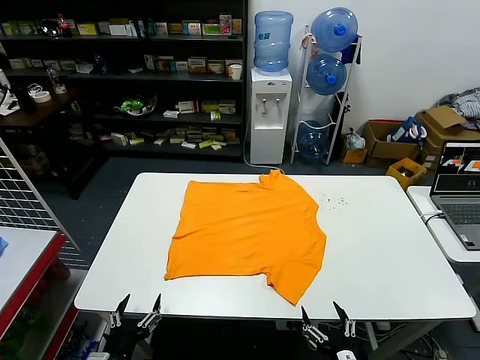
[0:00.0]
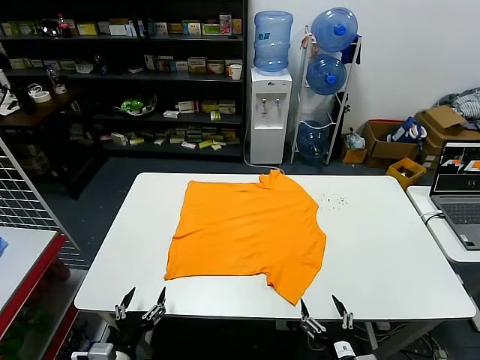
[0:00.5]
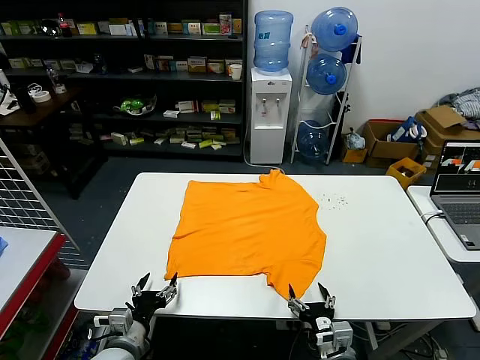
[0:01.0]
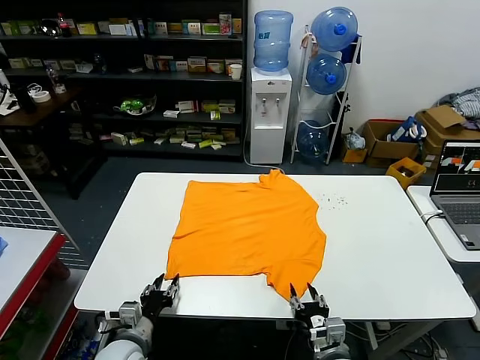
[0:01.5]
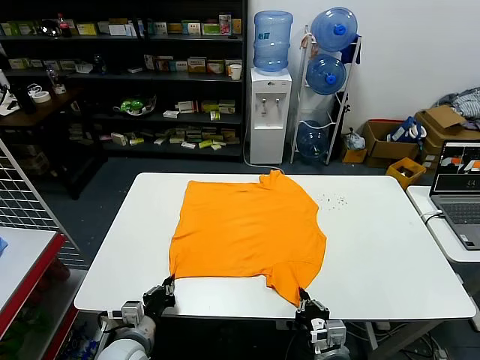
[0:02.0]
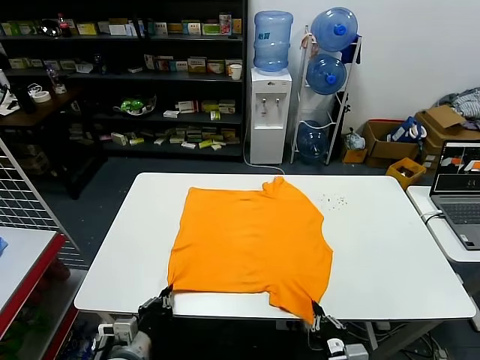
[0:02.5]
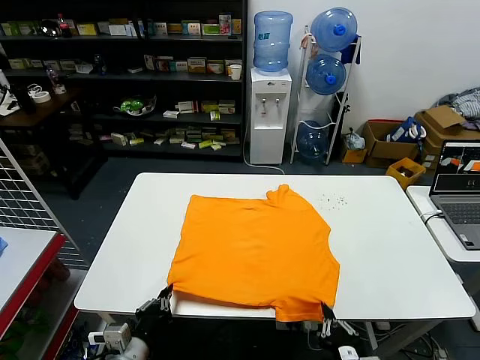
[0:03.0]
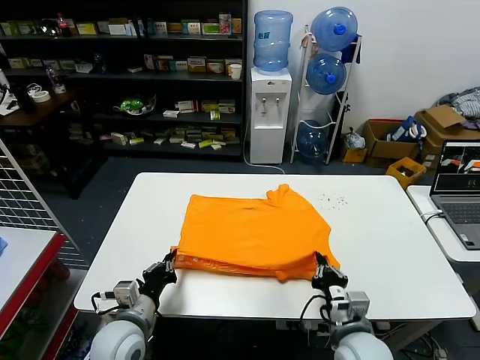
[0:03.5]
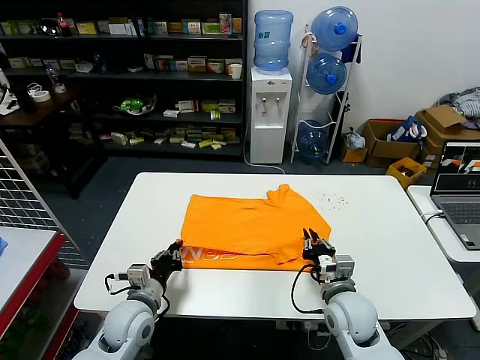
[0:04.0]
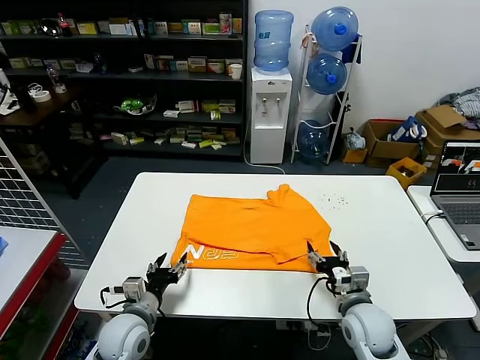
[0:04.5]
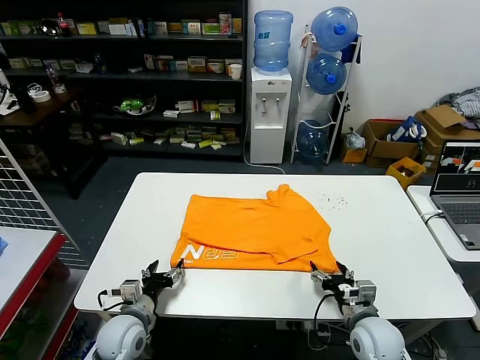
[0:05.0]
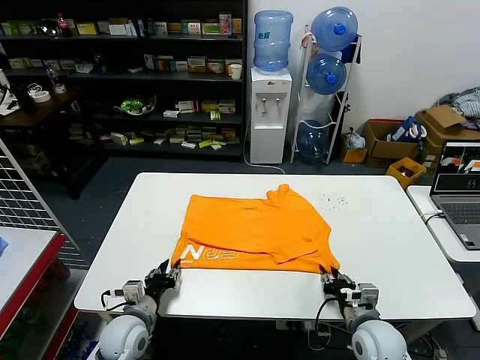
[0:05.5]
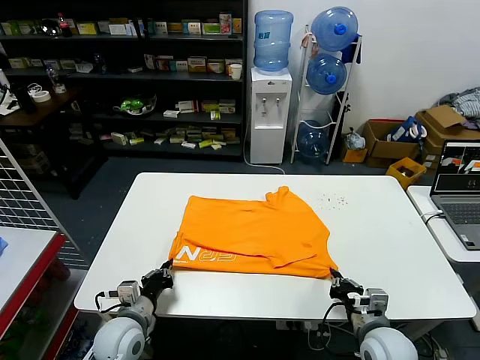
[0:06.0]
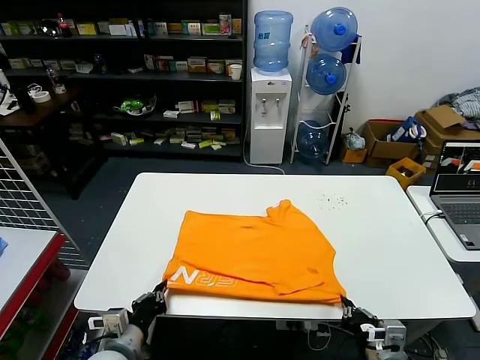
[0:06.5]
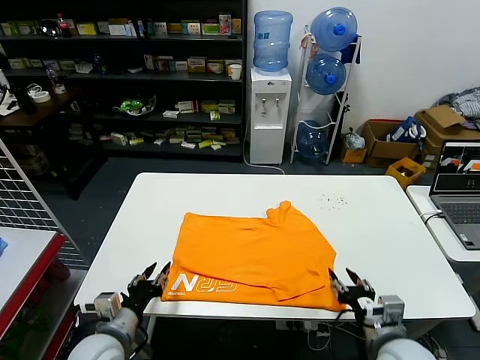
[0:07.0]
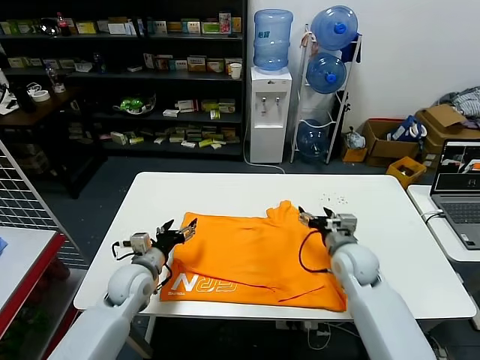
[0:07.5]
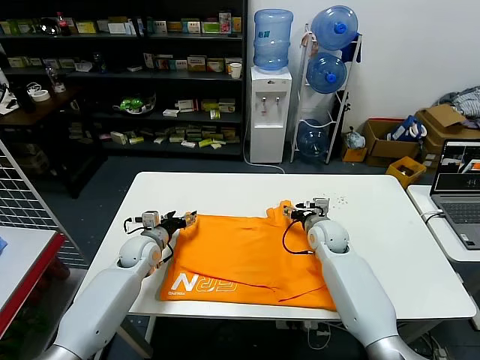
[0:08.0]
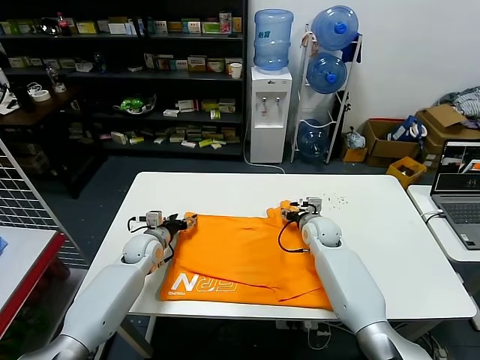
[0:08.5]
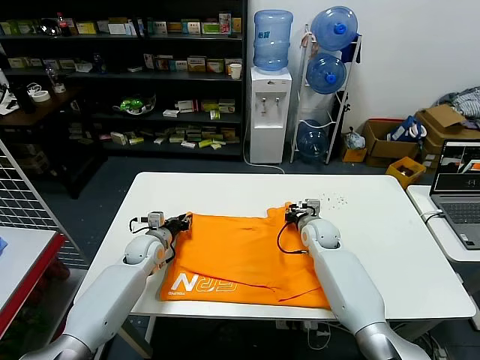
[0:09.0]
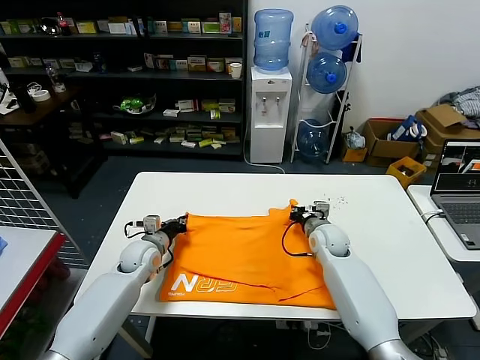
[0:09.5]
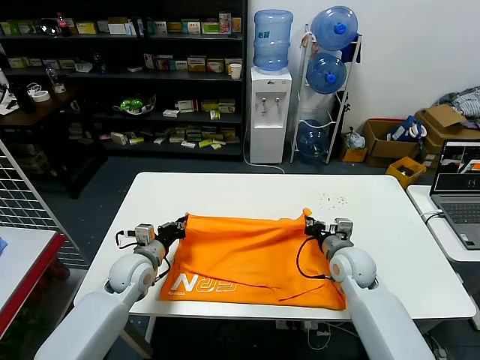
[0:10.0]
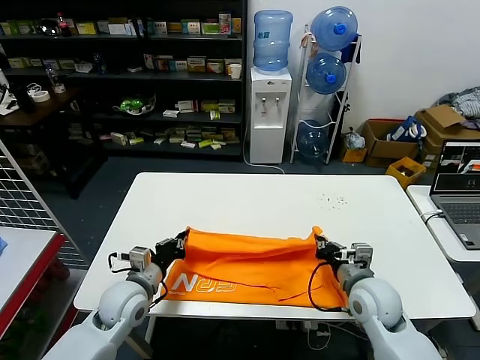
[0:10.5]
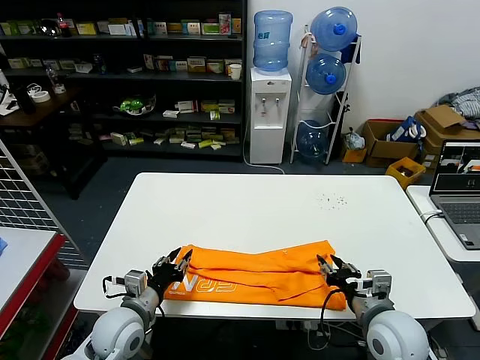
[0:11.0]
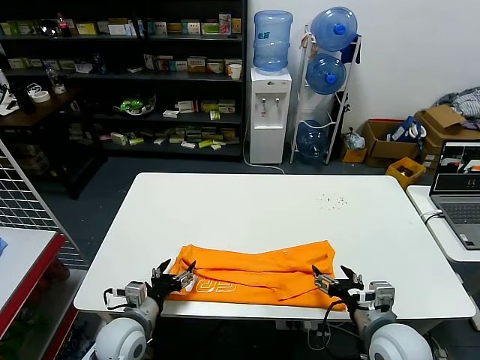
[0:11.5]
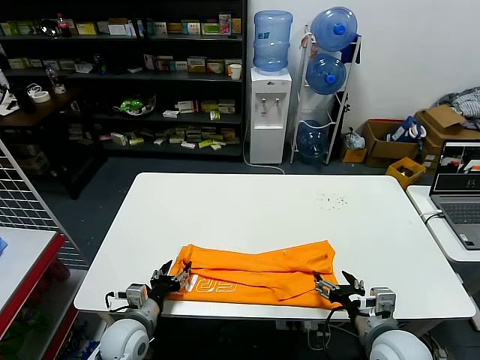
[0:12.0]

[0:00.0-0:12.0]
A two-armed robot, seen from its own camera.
Task of the whole recording: fold and organize the clothes.
Step, 0:00.0 to 0:02.0: use both grippers simultaneously to clamp the lower edge of the clothing fabric.
Step, 0:02.5 to 0:04.0: use both grippers to drag the lower edge of the fabric forward and fold it over the upper edge.
Step, 0:05.0 to 0:07.0: Drag the clothes downward with both gripper.
Step, 0:07.5 to 0:09.0: use both grippers simultaneously to clamp the upper edge of the clothing fabric.
Step, 0:09.5 to 0:11.0: use both grippers to drag the upper edge of the fabric backward and fold it over the lower edge.
0:02.0 to 0:04.0: The left gripper is displaced forward and upward by some 10 cm. Meanwhile the right gripper goes about 15 cm forward and upward.
0:04.0 to 0:06.0: The left gripper opens and closes again, while the right gripper travels backward and to the right by approximately 10 cm, and opens, then closes once more.
0:06.0 to 0:08.0: Both grippers move forward, roughly 25 cm. The right gripper opens. Meanwhile the left gripper opens up.
0:08.0 to 0:10.0: The two grippers go about 10 cm backward. The left gripper closes its fingers. The right gripper closes its fingers.
0:10.0 to 0:12.0: The right gripper heads backward, covering roughly 20 cm, and opens its fingers. The left gripper goes some 15 cm backward and downward, and opens its fingers.

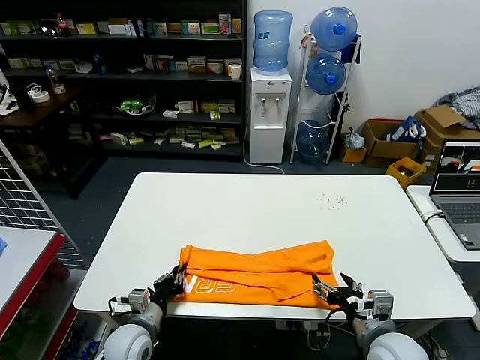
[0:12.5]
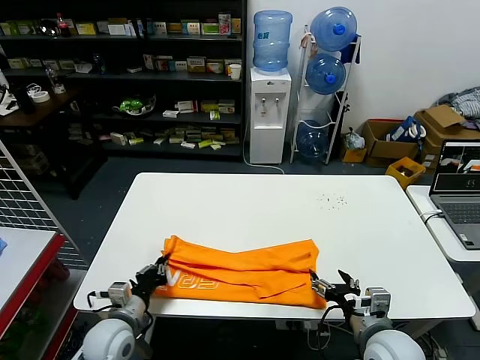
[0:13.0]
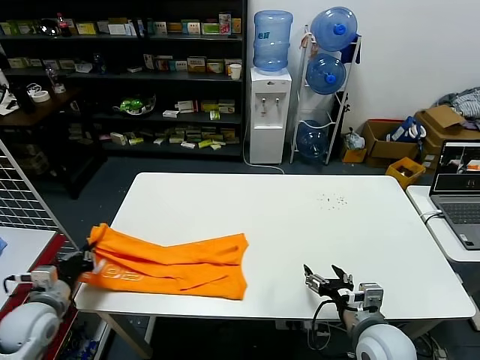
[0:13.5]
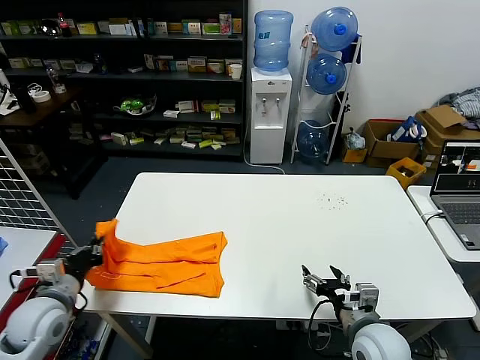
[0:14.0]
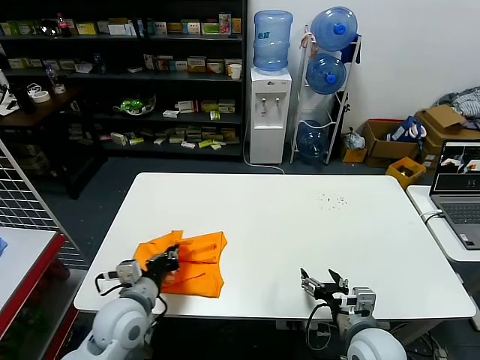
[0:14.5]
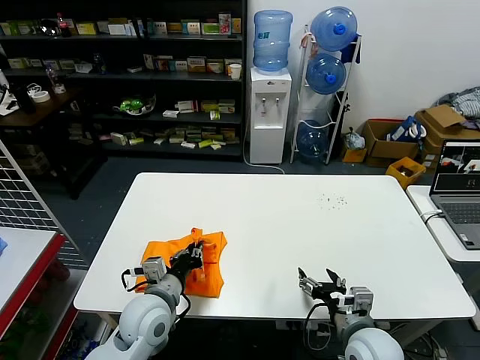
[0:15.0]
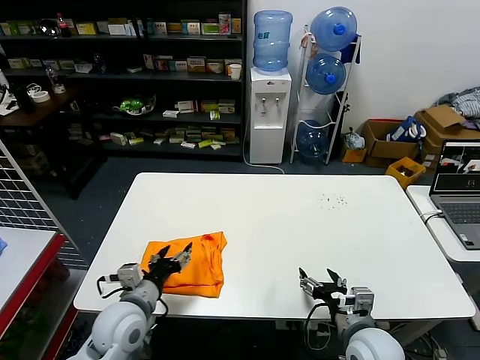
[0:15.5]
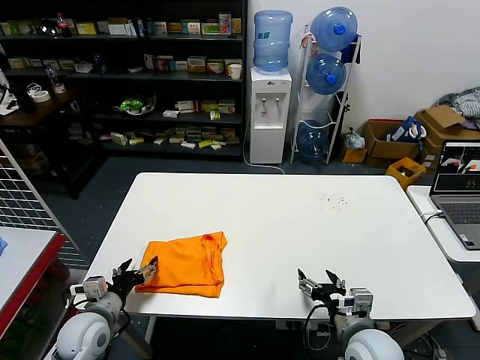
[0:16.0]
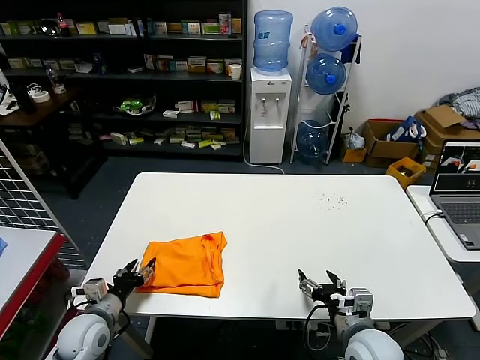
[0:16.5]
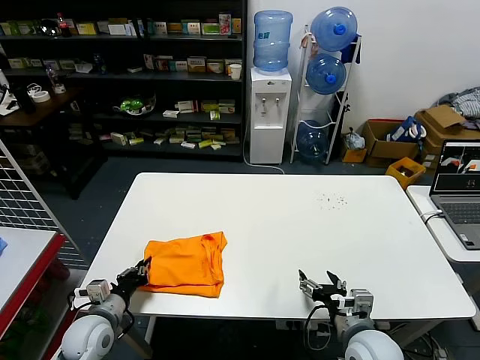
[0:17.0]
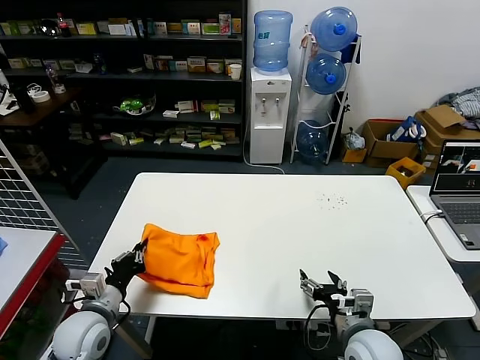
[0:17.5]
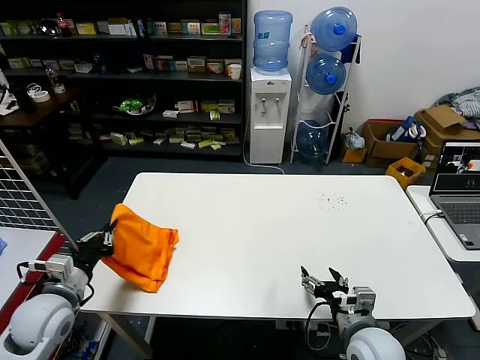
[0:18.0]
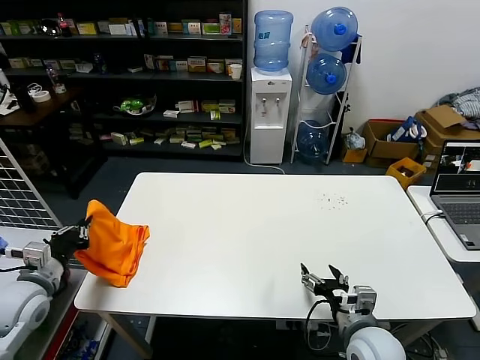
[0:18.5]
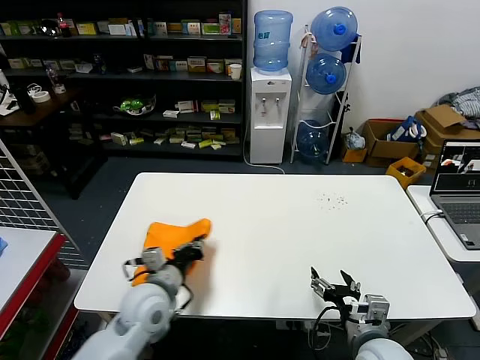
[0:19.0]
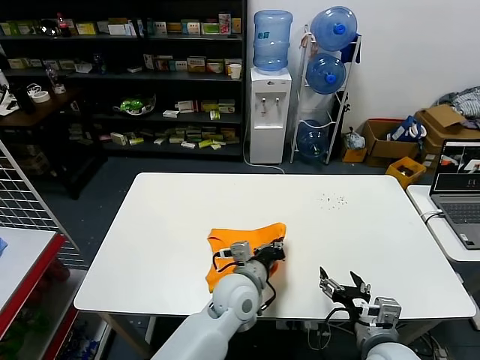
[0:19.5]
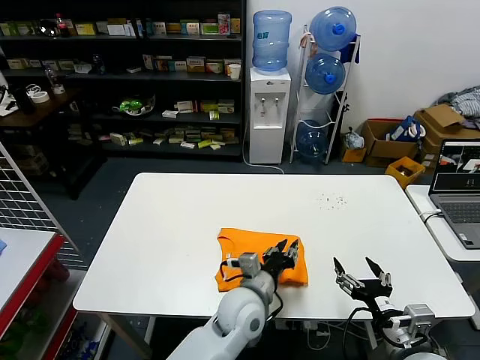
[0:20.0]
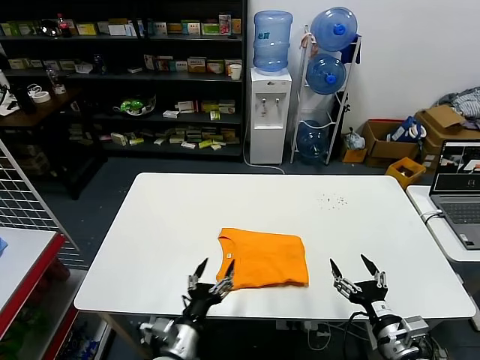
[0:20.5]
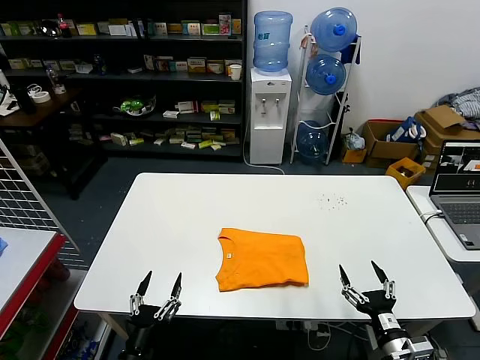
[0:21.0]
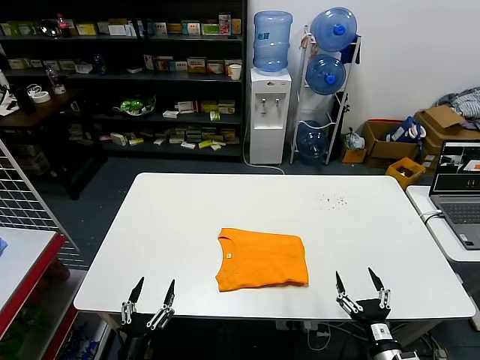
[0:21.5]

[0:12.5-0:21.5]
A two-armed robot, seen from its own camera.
Task of the whole recording: fold and organize the clothes.
Step, 0:13.0 to 0:15.0: use the left gripper to drag the left edge of the fabric to the left and folds it over the right edge.
Step, 0:15.5 to 0:20.0: Flip the folded clothes over with left gripper.
0:12.5 to 0:14.5: The left gripper shifts roughly 10 cm upward, and moves roughly 15 cm to the left and comes back.
0:14.5 to 0:17.0: The left gripper travels to the left and downward by roughly 10 cm, and opens, then closes again.
0:17.0 to 0:19.5: The left gripper shifts roughly 30 cm to the right.
0:19.5 to 0:21.5: The left gripper heads to the left, backward and downward, covering roughly 35 cm, and opens, while the right gripper moves downward, backward and to the right, approximately 10 cm.

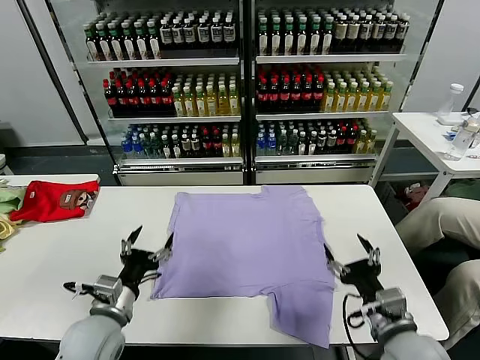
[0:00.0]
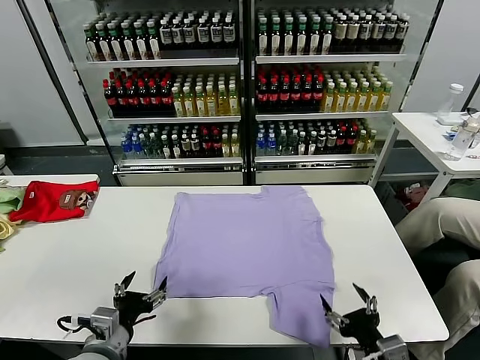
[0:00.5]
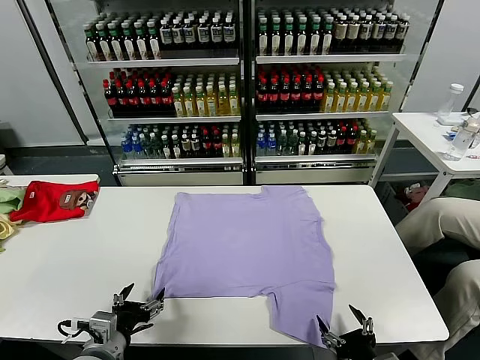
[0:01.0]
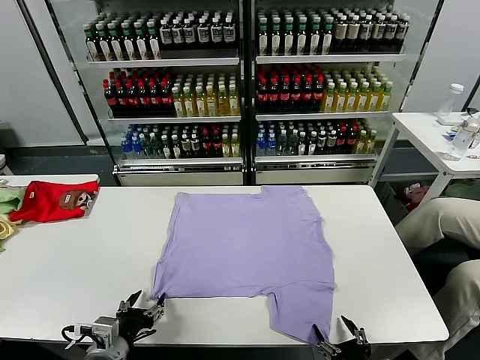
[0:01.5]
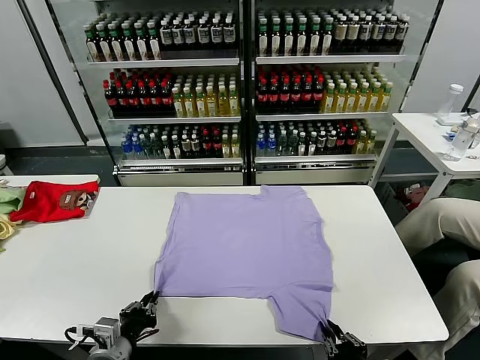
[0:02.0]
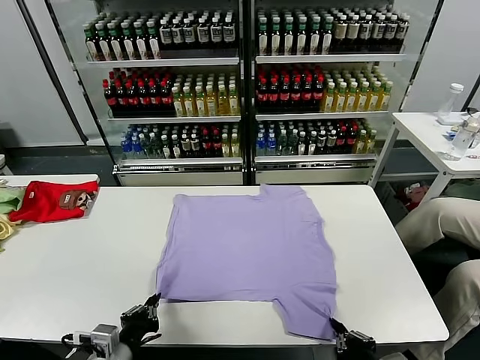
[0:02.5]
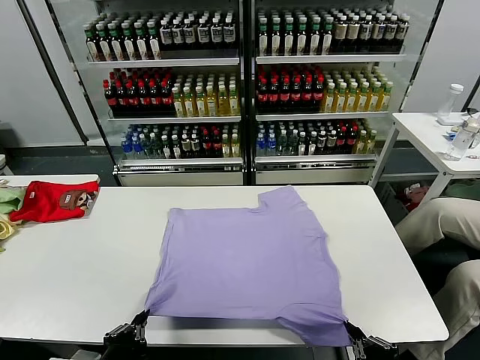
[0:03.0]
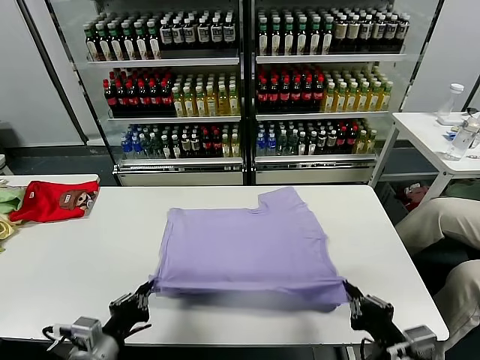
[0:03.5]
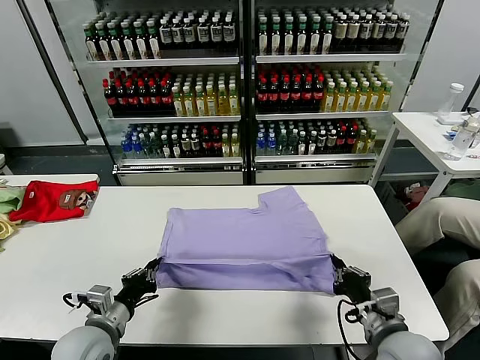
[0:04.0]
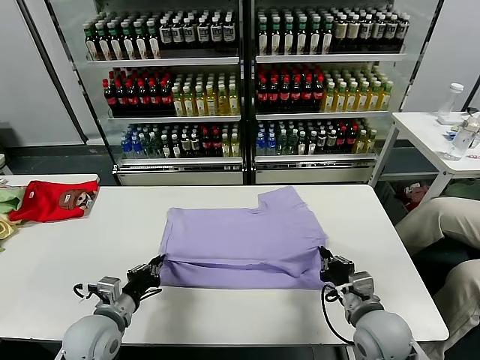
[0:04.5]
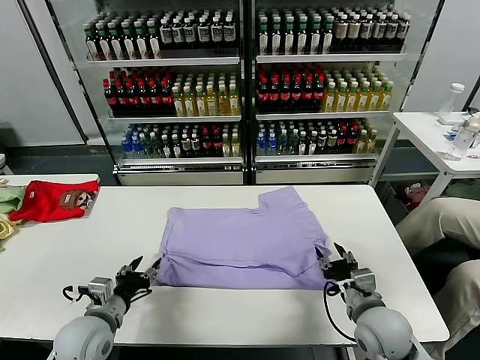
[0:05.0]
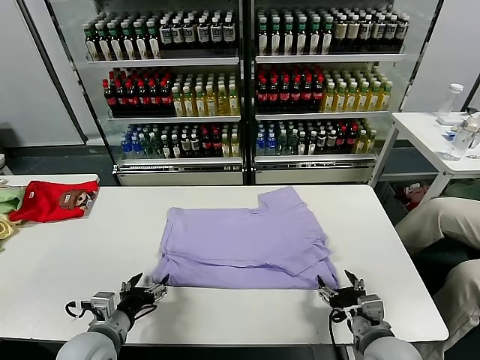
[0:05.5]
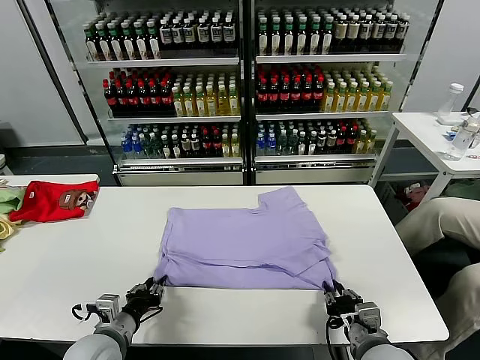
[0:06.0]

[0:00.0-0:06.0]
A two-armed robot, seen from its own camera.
Task of the whole recording: fold and organize the clothes.
Step, 0:00.0 to 0:02.0: use both grippers simultaneously to clamp the lower edge of the clothing fabric.
Step, 0:02.5 to 0:05.0: use both grippers to drag the lower edge of the fabric forward and fold it over the upper edge.
0:02.0 to 0:04.0: The right gripper moves forward, about 10 cm. The left gripper is displaced forward by roughly 5 cm.
0:04.0 to 0:06.0: The right gripper opens, then closes again. The left gripper opens its fingers.
